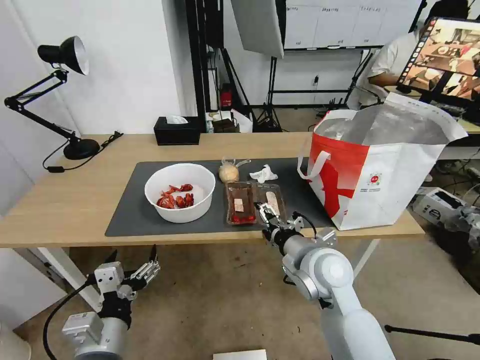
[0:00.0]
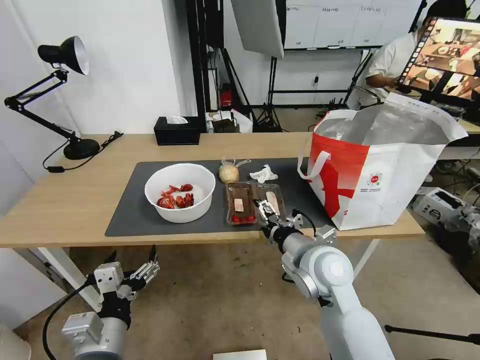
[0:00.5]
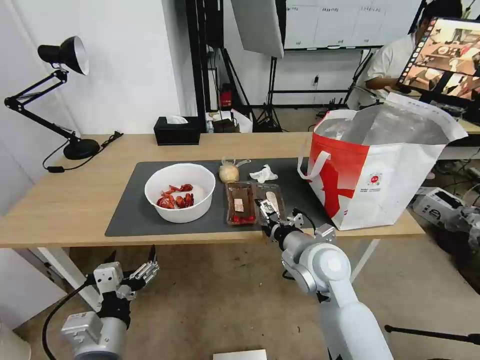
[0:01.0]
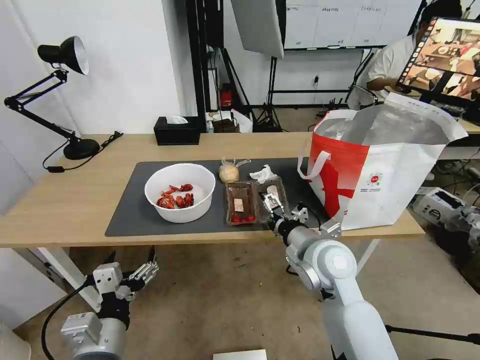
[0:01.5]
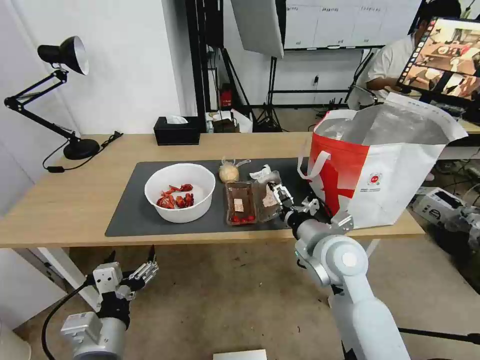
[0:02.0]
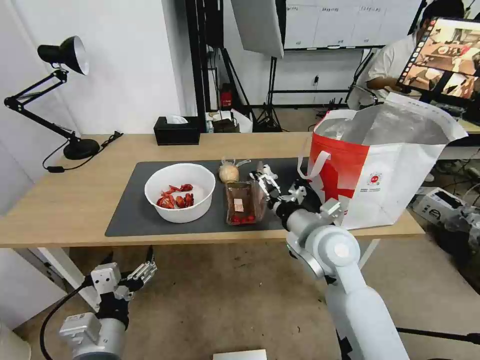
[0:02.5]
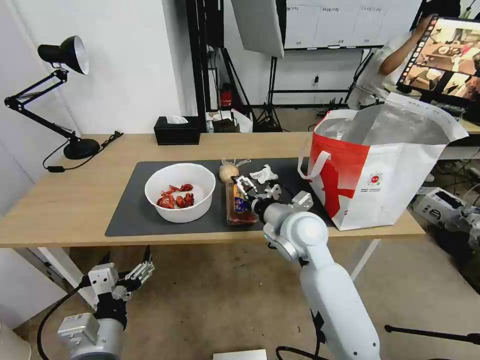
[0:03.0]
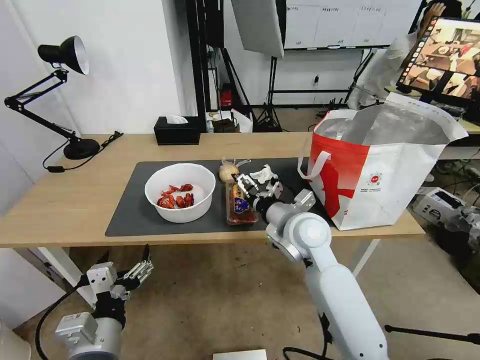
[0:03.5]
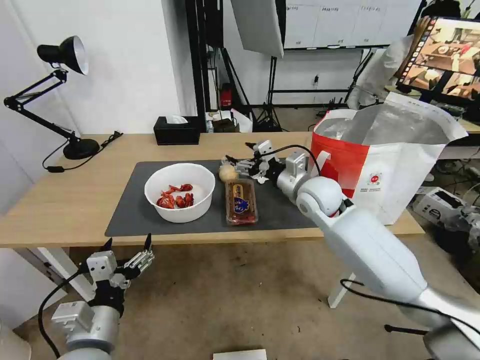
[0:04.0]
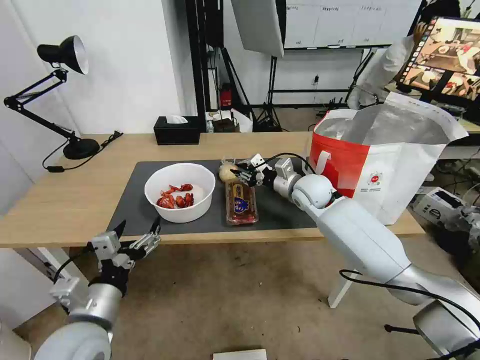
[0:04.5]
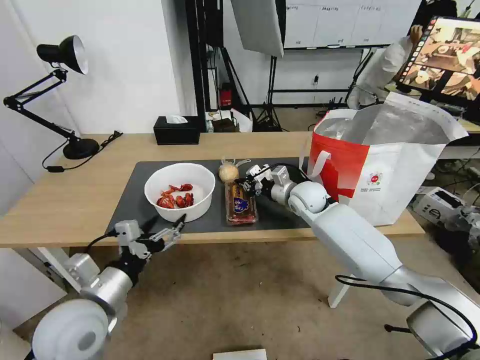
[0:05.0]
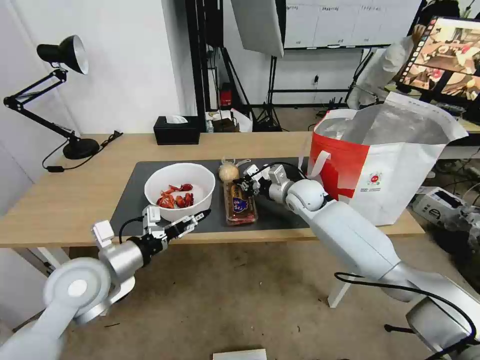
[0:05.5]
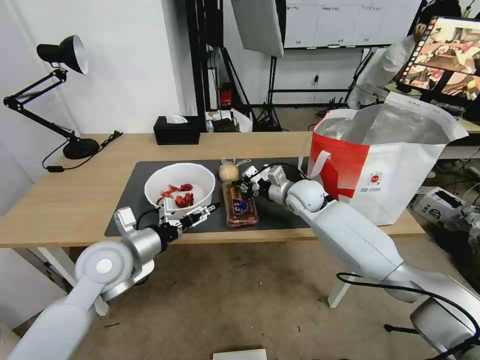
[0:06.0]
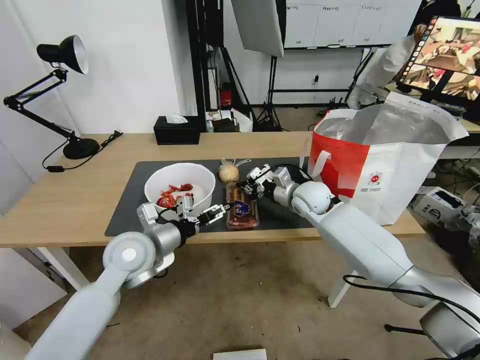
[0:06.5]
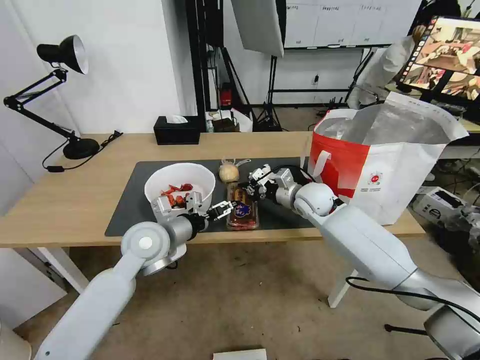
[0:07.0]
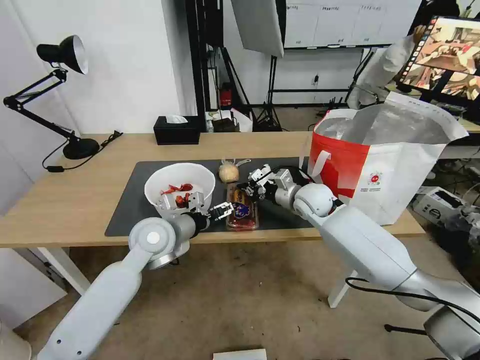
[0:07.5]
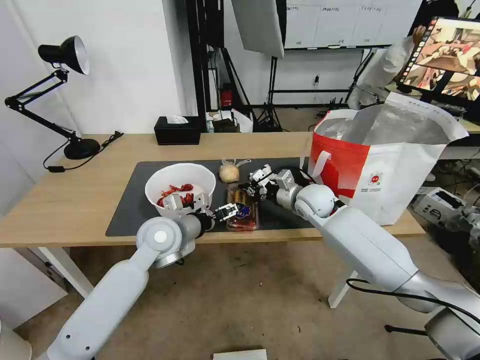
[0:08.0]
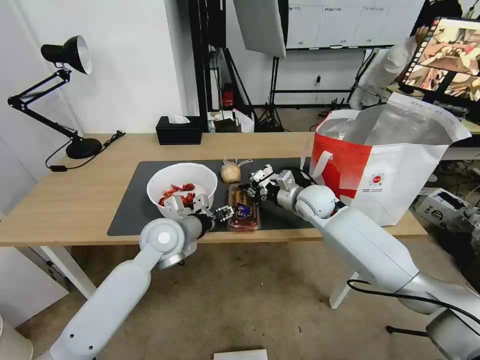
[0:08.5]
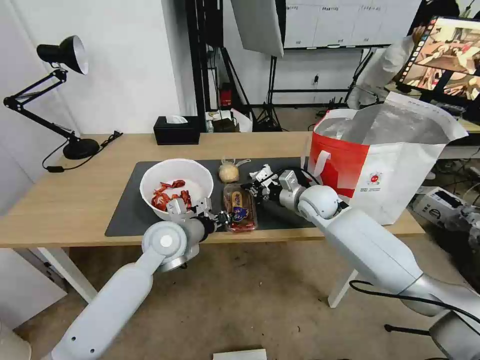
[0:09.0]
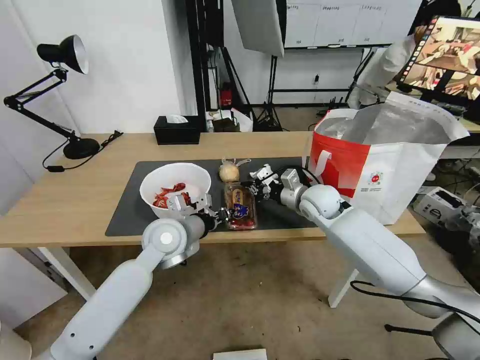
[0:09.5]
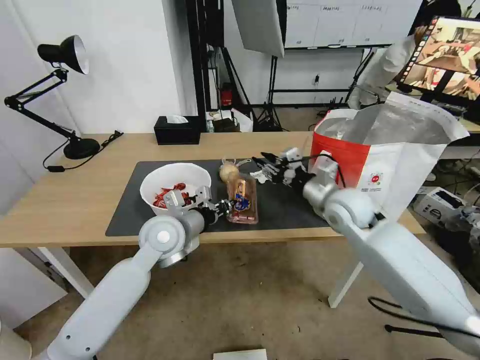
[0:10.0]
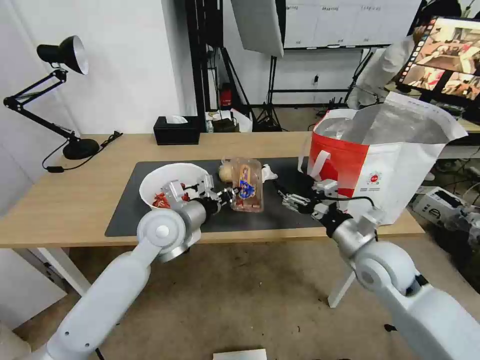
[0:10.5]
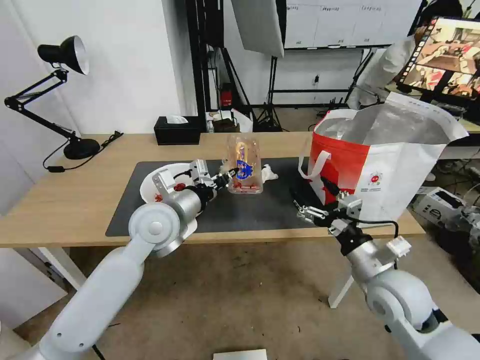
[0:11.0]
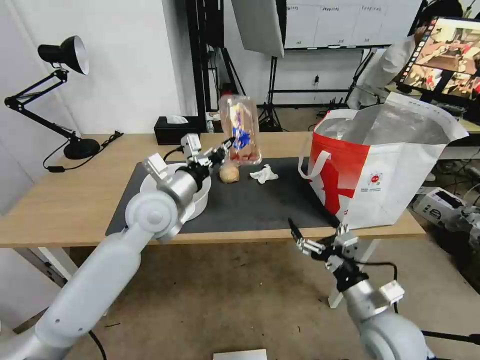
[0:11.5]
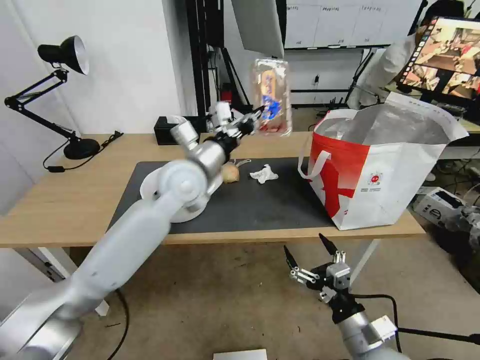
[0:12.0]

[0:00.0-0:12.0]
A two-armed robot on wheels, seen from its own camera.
Task of the whole recording: Pick up the trash from the table and place it into the takeout bag.
0:00.0 to 0:02.0: The grippers stay close to where they were, moving slightly.
0:02.0 to 0:04.0: The right gripper travels forward by about 15 cm.
0:04.0 to 0:06.0: The left gripper shifts approximately 15 cm forward, while the right gripper shifts some 10 cm downward and forward, and closes its fingers.
0:06.0 to 0:08.0: The left gripper is displaced to the right and forward by roughly 10 cm.
0:08.0 to 0:10.0: The left gripper closes its fingers. Meanwhile the right gripper travels backward and upward by roughly 10 cm.
0:10.0 to 0:12.0: The right gripper moves backward and downward, about 30 cm, and opens its fingers, while the left gripper shifts roughly 15 cm upward, forward and to the right.

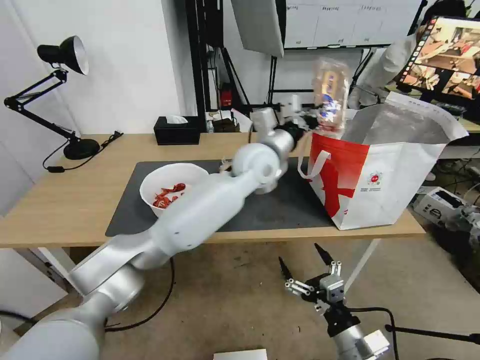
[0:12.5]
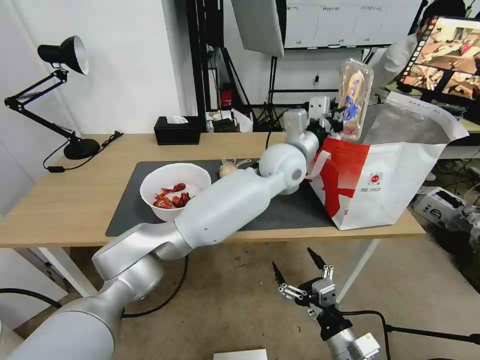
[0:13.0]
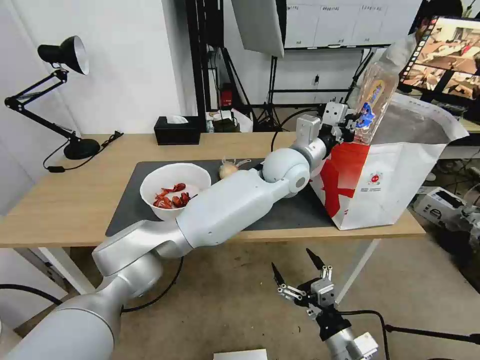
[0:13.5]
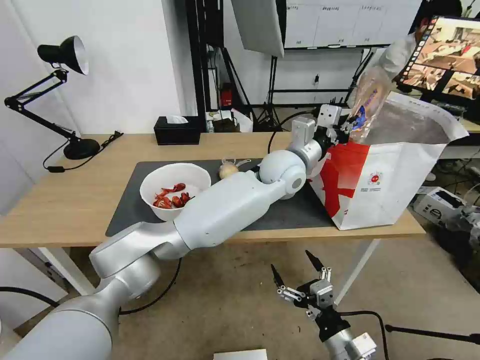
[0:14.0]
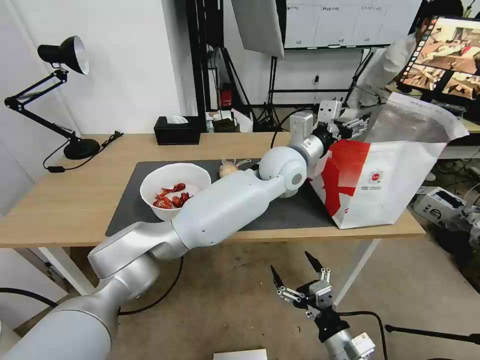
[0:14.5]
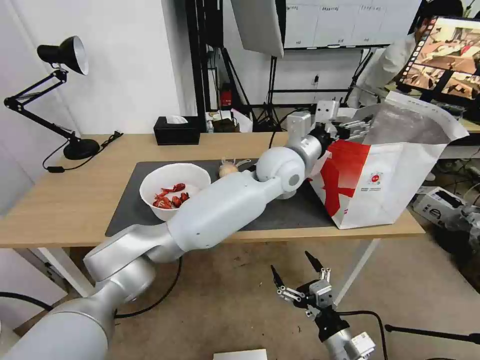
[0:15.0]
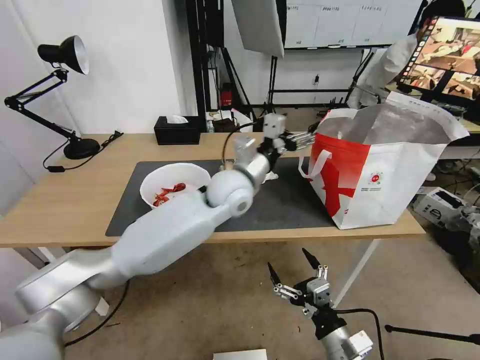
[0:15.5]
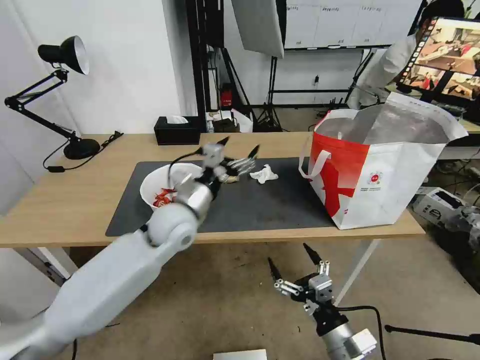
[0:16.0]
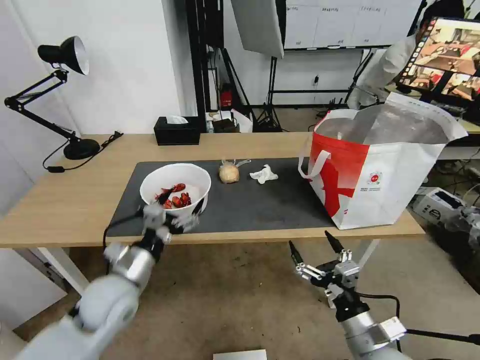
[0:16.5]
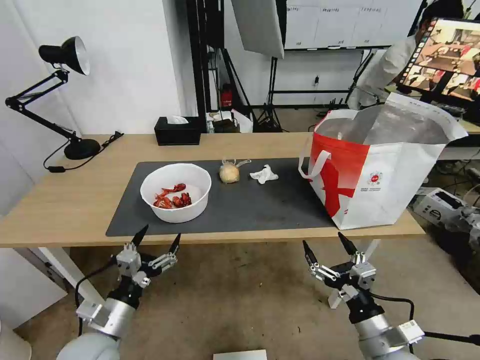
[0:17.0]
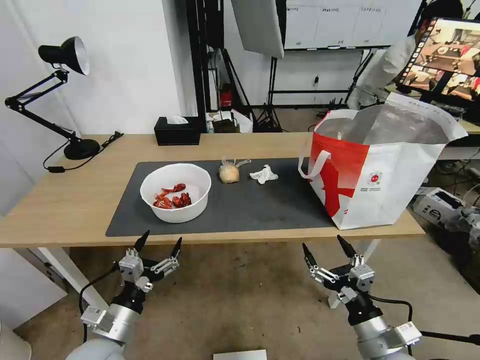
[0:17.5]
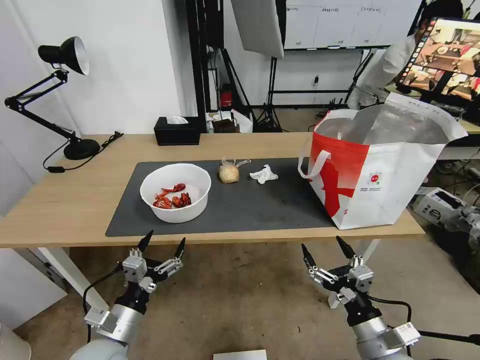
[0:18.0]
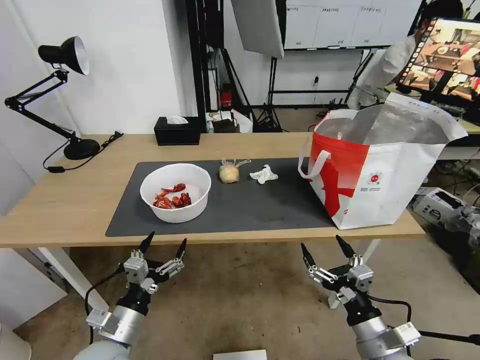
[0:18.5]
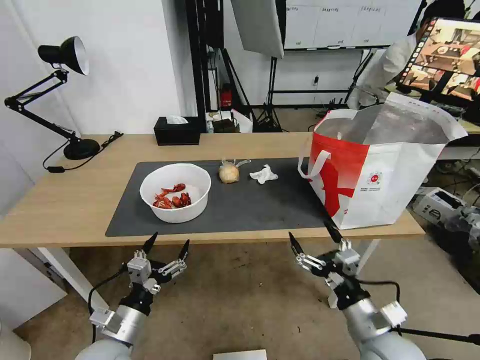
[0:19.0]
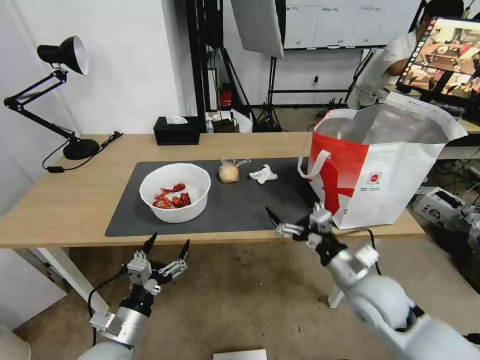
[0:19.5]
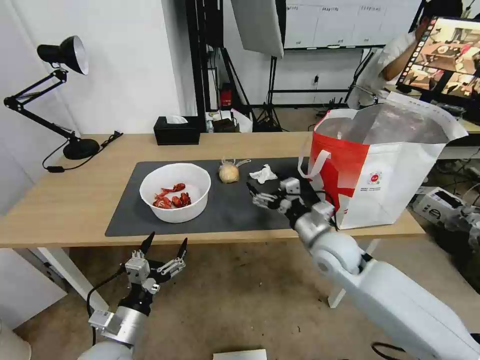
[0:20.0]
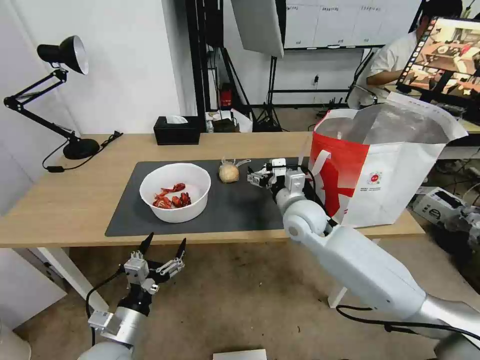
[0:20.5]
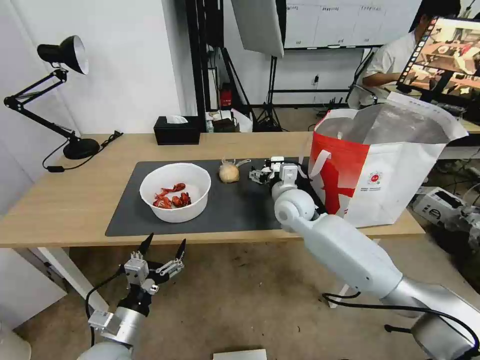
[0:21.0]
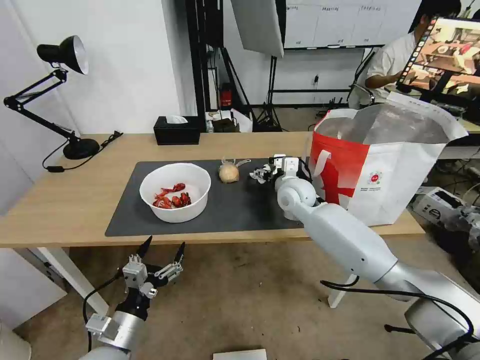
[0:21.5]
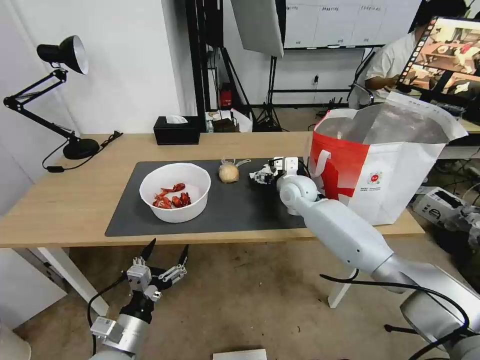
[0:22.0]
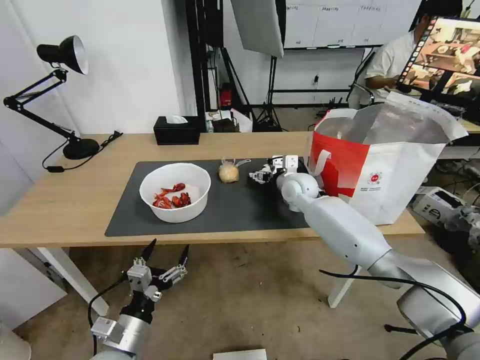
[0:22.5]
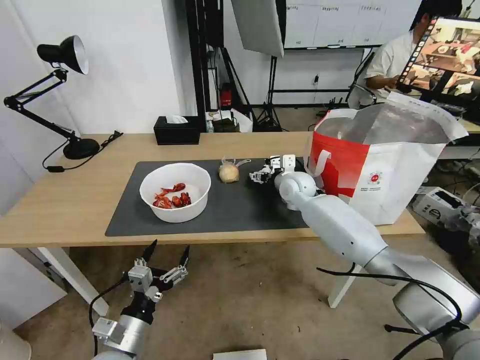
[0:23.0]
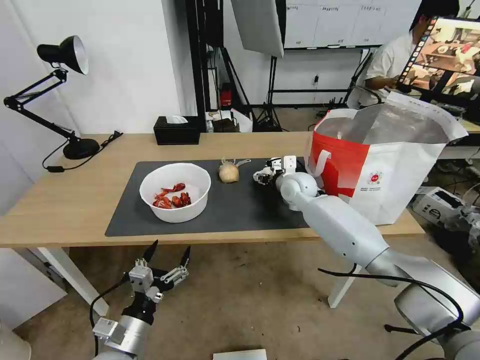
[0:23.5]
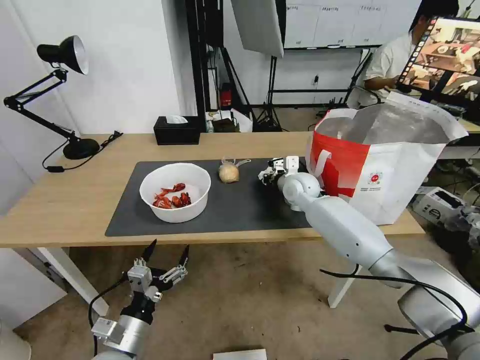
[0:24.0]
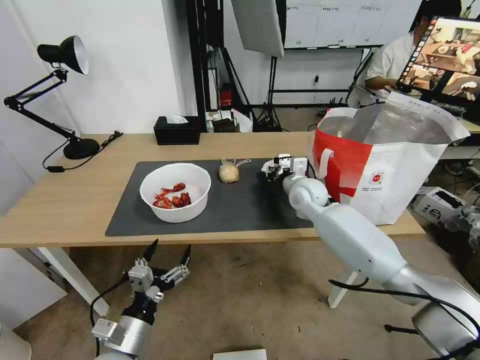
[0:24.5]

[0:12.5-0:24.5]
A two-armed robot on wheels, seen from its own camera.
Task of the whole recording: Pick up the trash from the table and place it into the takeout bag.
0:12.5 to 0:14.5: The left gripper shifts some 5 cm to the right, and opens up.
0:14.5 to 0:16.5: The left gripper moves to the left, backward and downward, roughly 40 cm.
0:16.5 to 0:18.5: The left gripper moves backward and downward, some 10 cm.
0:18.5 to 0:20.5: The right gripper travels forward and to the left by roughly 30 cm.
0:20.5 to 0:22.5: The right gripper goes about 10 cm forward.
0:22.5 to 0:24.5: The right gripper closes.

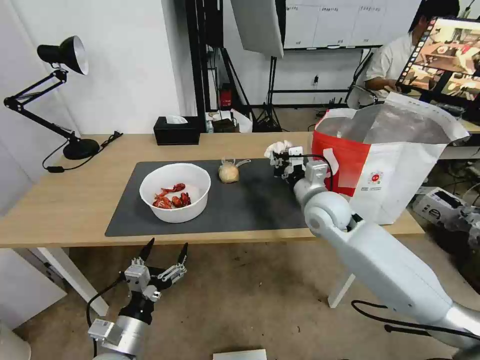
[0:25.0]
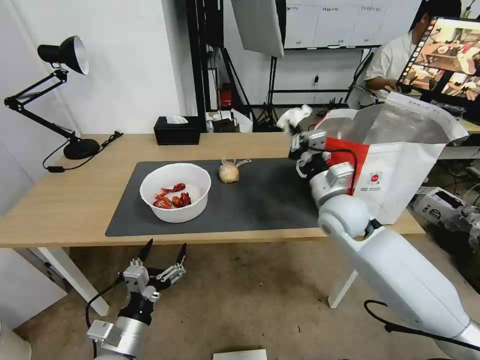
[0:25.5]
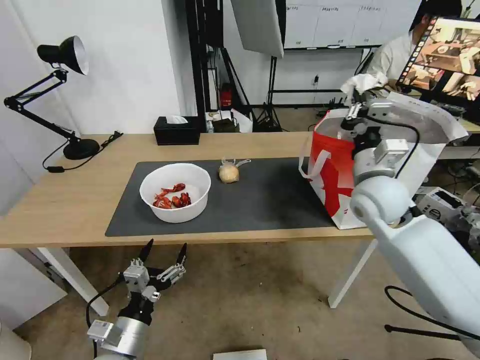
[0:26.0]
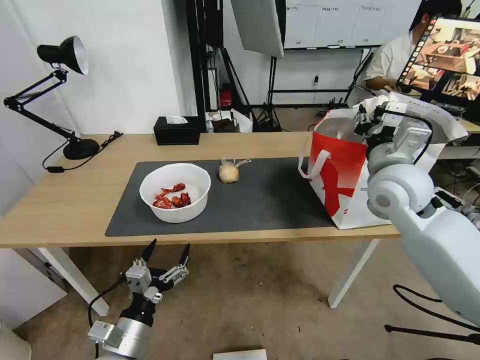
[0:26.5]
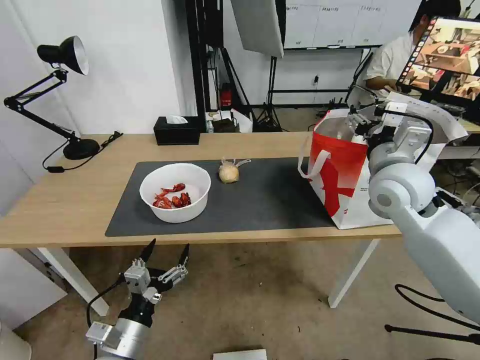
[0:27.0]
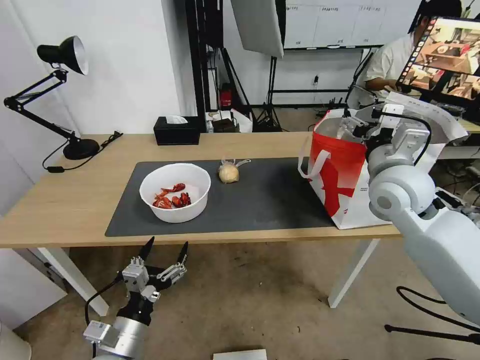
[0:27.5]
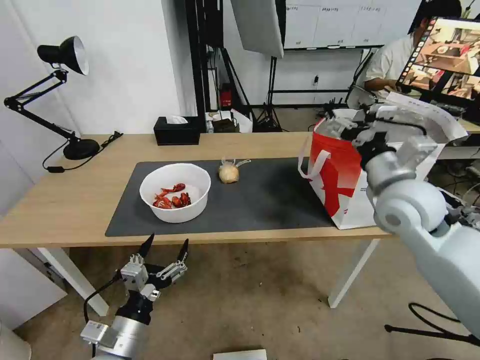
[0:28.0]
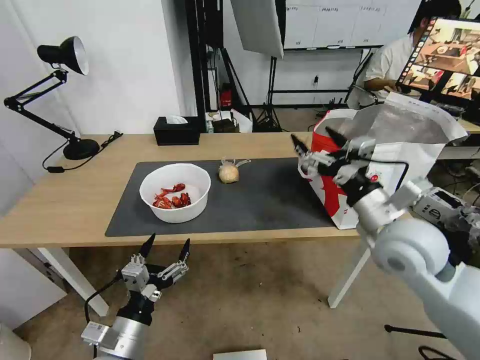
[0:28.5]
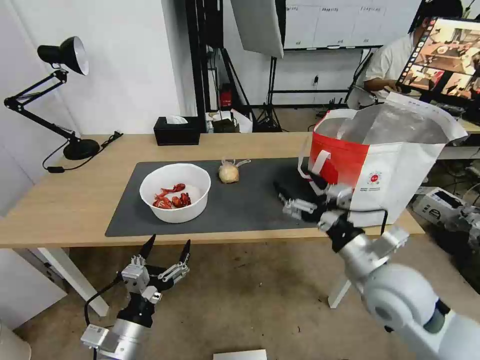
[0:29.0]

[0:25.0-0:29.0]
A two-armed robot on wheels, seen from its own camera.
Task of the whole recording: Pick up the trash from the table and place it into the takeout bag.
0:25.0 to 0:27.0: The right gripper shifts roughly 15 cm upward and to the right, and opens its fingers.
0:27.0 to 0:29.0: The right gripper heads backward and downward, covering approximately 20 cm.
